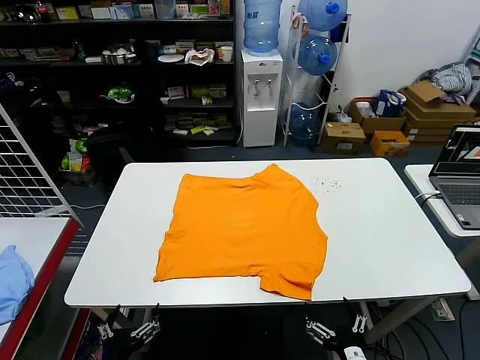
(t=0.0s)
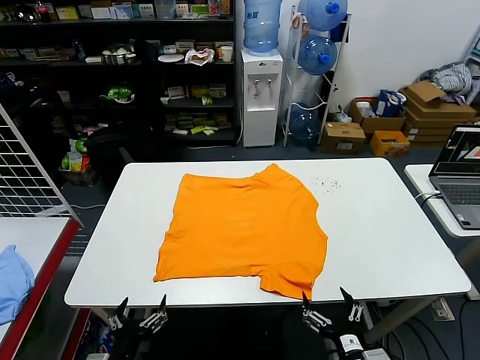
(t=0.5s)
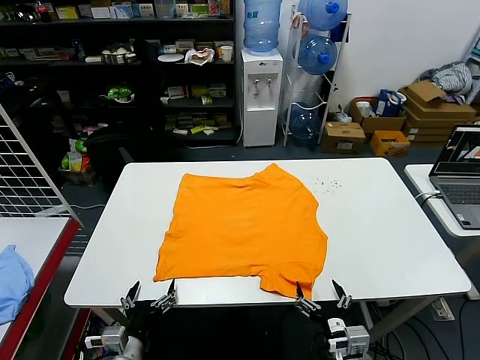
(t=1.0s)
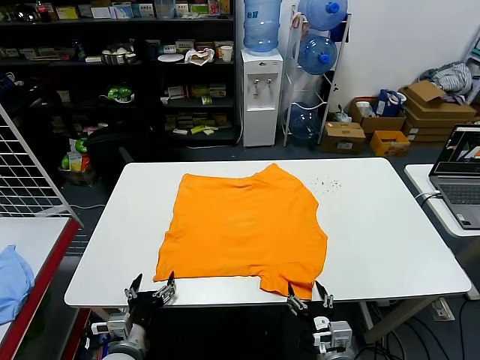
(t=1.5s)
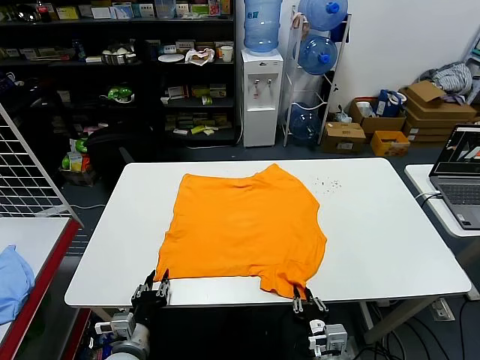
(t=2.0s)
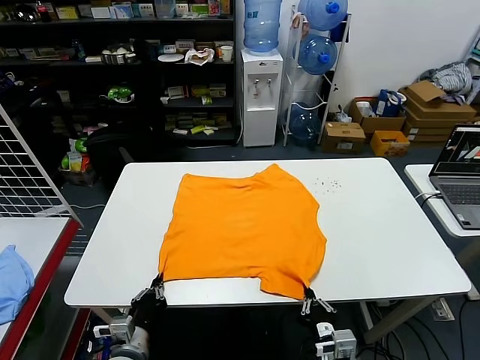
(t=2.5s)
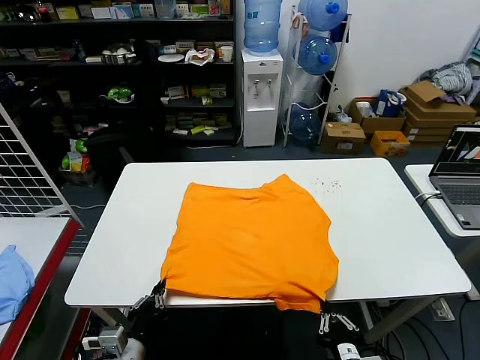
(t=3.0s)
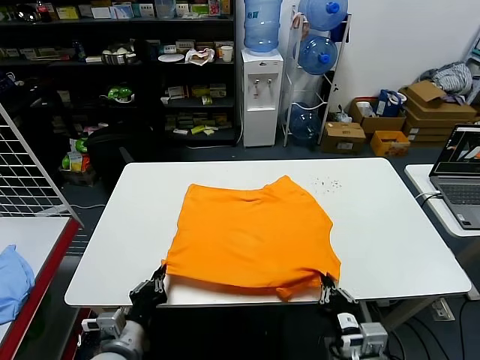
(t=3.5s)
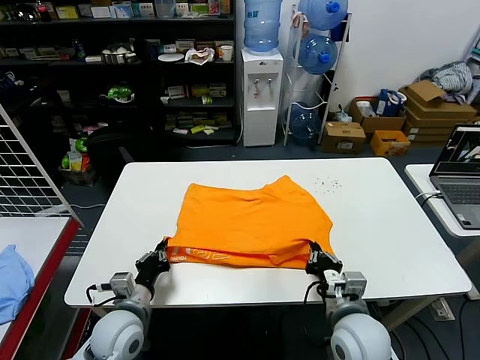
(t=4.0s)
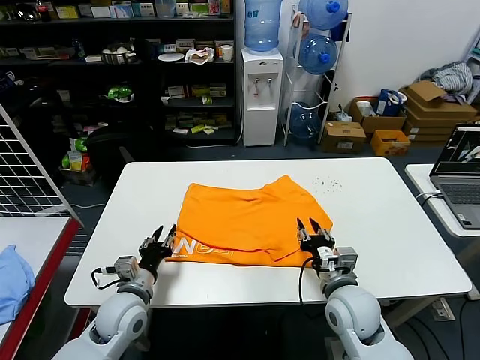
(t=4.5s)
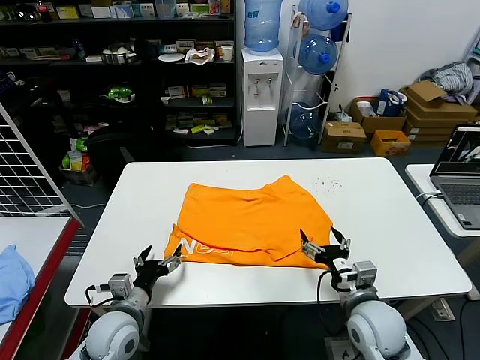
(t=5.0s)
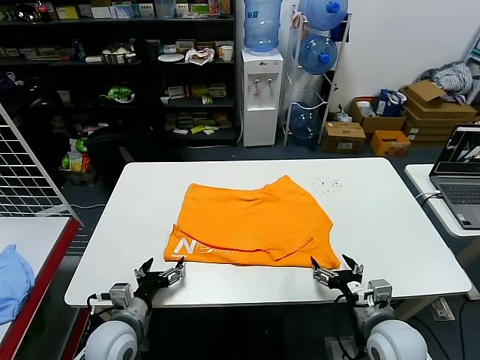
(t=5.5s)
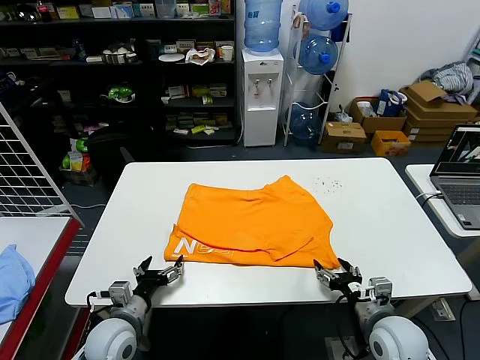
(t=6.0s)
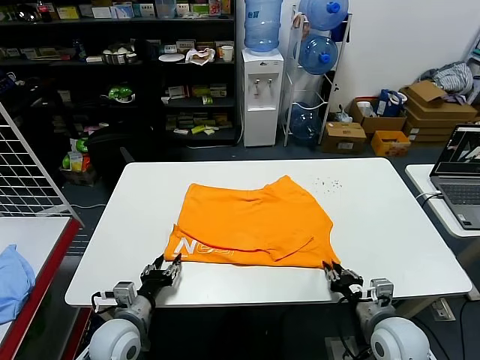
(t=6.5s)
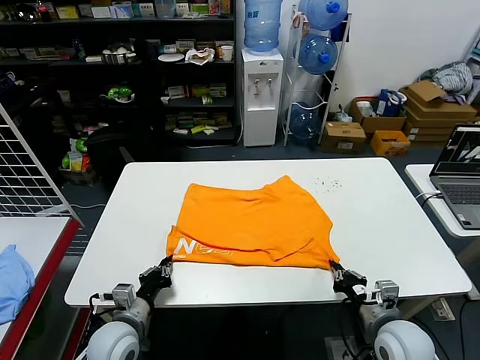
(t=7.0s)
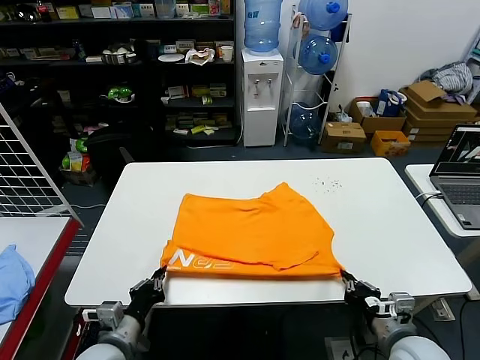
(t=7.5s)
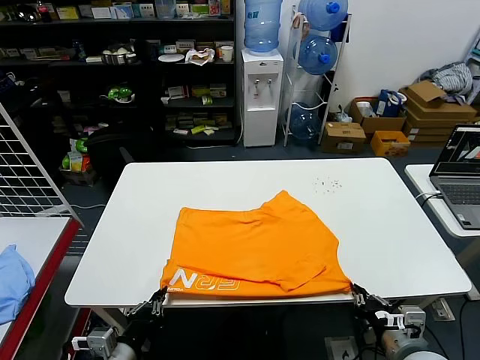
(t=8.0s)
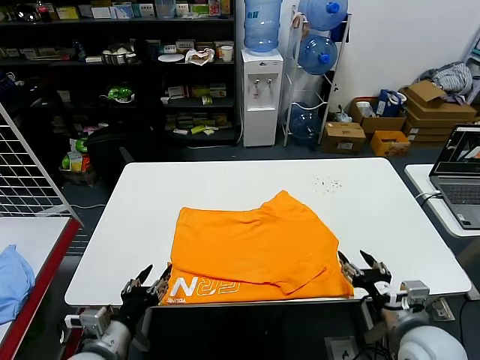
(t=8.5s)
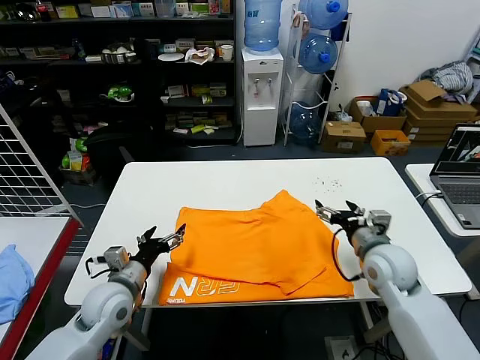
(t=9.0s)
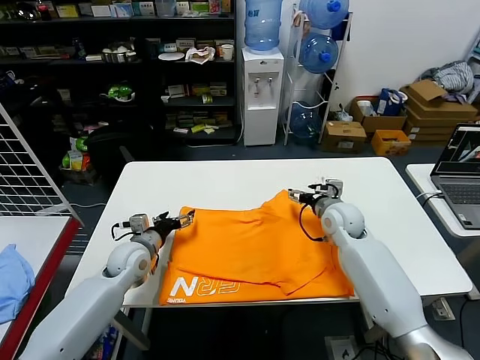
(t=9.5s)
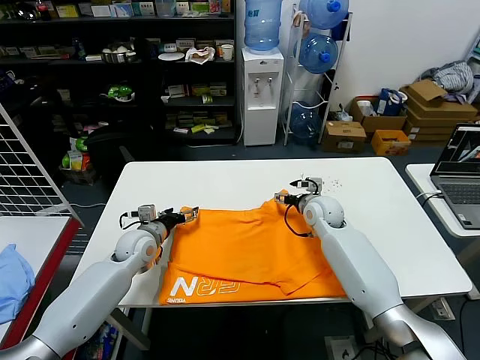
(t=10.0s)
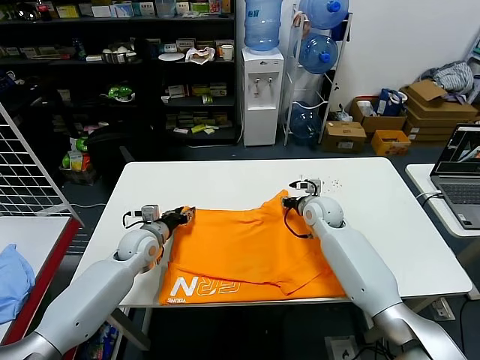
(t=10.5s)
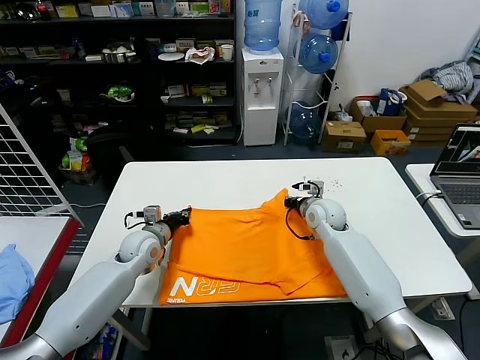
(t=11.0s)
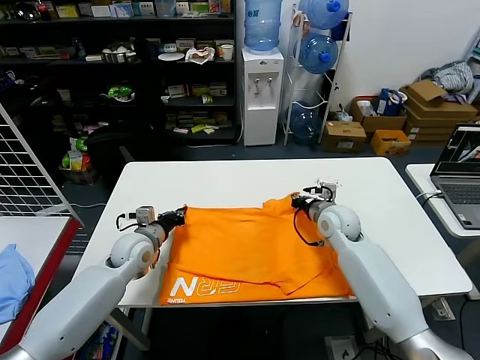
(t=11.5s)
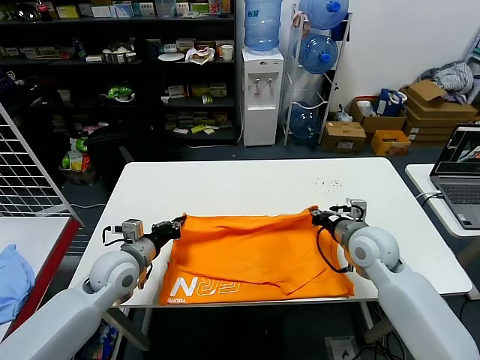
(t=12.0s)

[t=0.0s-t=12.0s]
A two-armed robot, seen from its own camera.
Task of the whole recording: fold and organize the clothes.
Step, t=0.0s to t=2.0s: use both grippers simultaneously to clamp the lower edge of the clothing fabric.
Step, t=2.5s to t=4.0s: use both grippers to drag the lower edge of the fabric forward and fold it over the upper edge.
Step, t=4.5s to t=8.0s: Drag the clothes downward with both gripper.
Step, t=8.5s to t=10.5s: use both grippers simultaneously to clamp the upper edge of the clothing fabric.
t=2.0s to t=4.0s: The left gripper travels forward by about 5 cm, and closes its fingers; the right gripper shifts about 10 cm forward and upward.
t=4.0s to t=6.0s: The right gripper is displaced to the right by some 10 cm, and opens up. The left gripper opens its fingers.
t=6.0s to t=8.0s: The left gripper travels backward and upward by about 10 cm, and closes its fingers, while the right gripper heads backward, covering roughly 5 cm, and closes.
t=8.0s to t=10.0s: The two grippers go some 35 cm forward. The left gripper opens up, while the right gripper opens its fingers.
t=10.0s to t=12.0s: The left gripper goes some 10 cm backward and upward, and closes its fingers; the right gripper shifts roughly 15 cm backward and to the right, and closes up.

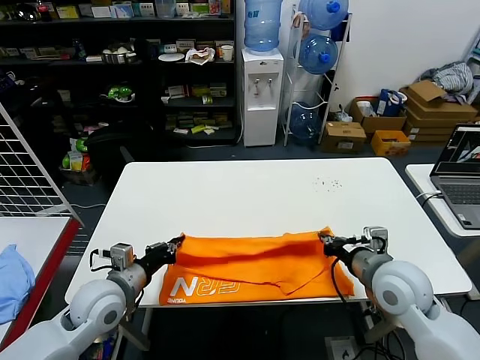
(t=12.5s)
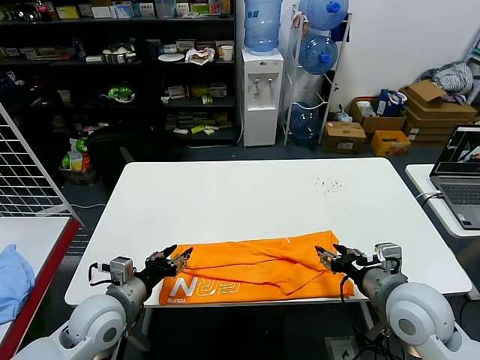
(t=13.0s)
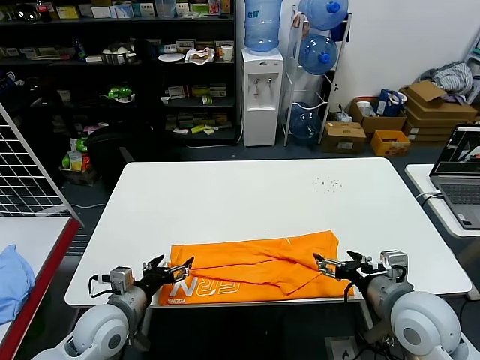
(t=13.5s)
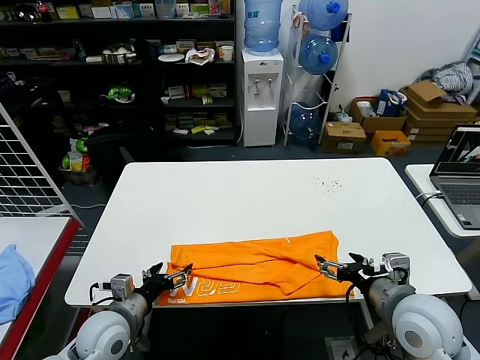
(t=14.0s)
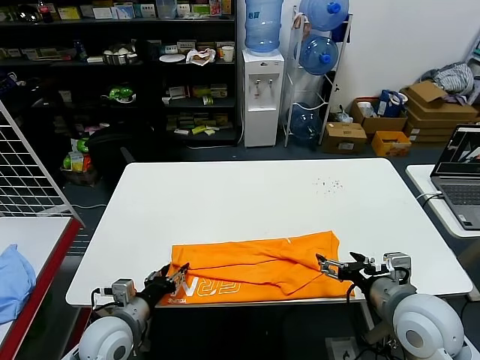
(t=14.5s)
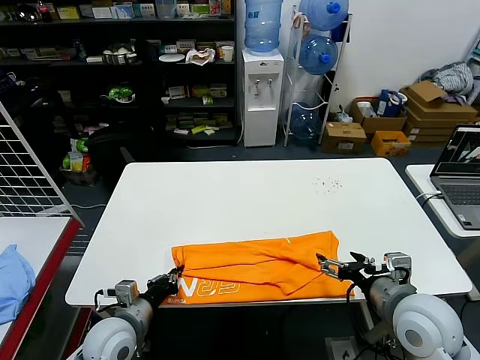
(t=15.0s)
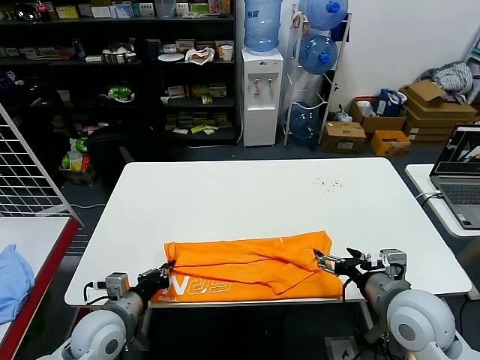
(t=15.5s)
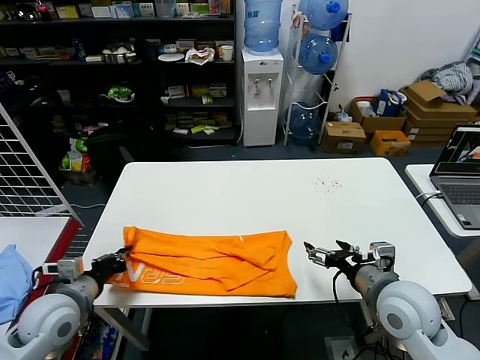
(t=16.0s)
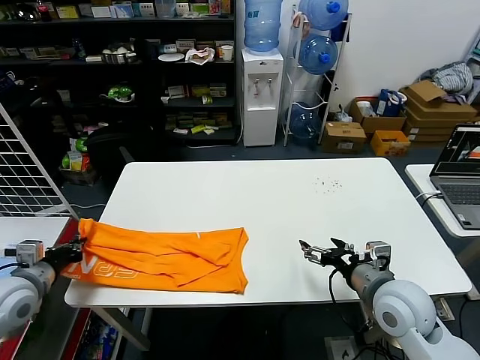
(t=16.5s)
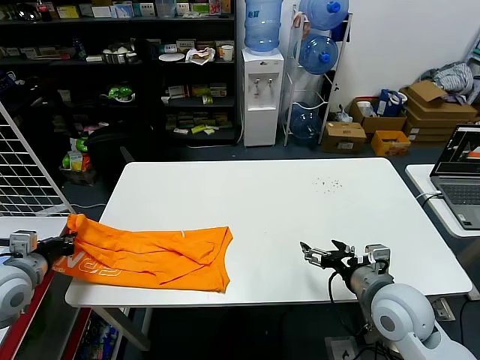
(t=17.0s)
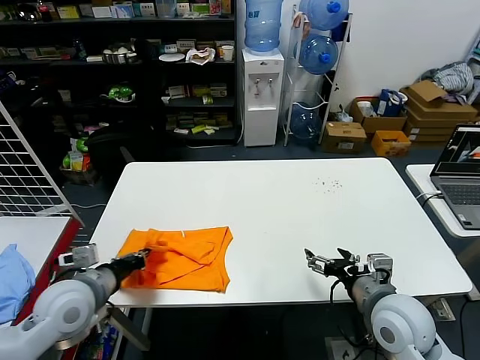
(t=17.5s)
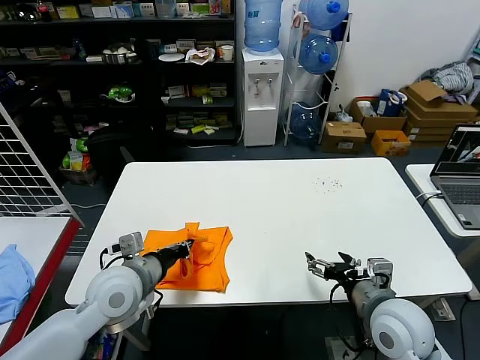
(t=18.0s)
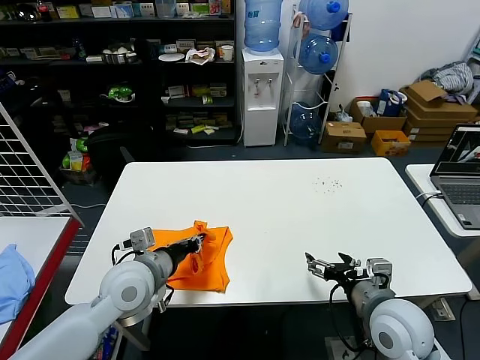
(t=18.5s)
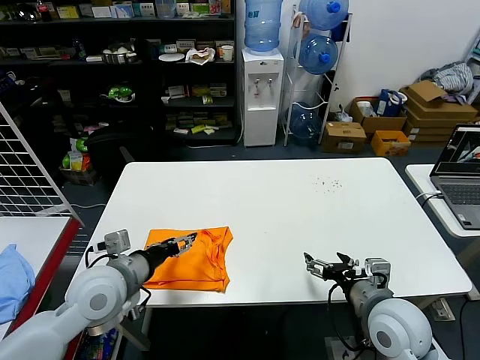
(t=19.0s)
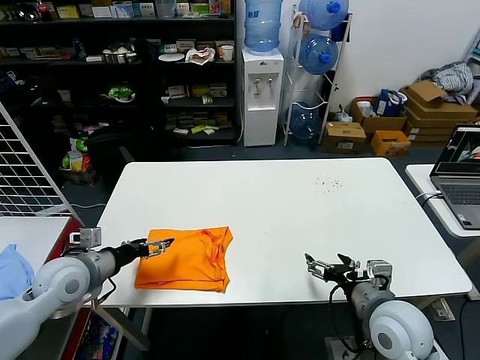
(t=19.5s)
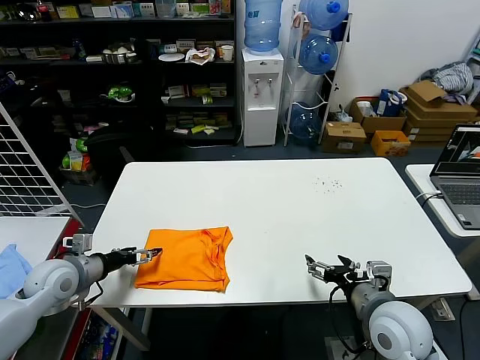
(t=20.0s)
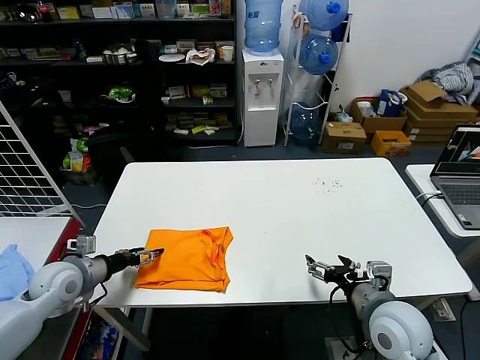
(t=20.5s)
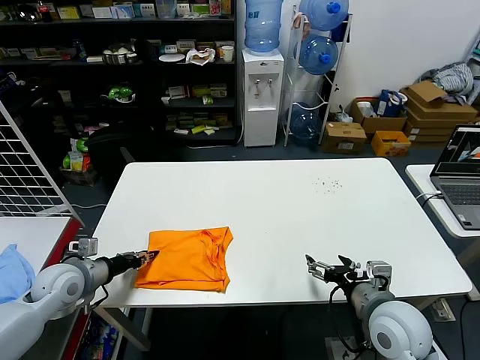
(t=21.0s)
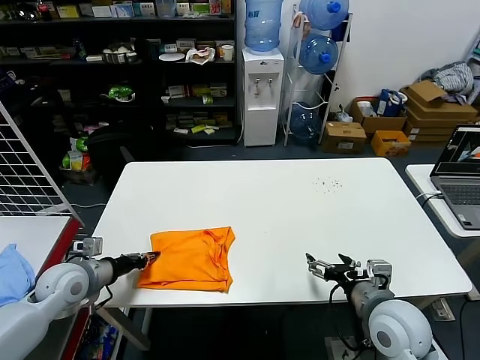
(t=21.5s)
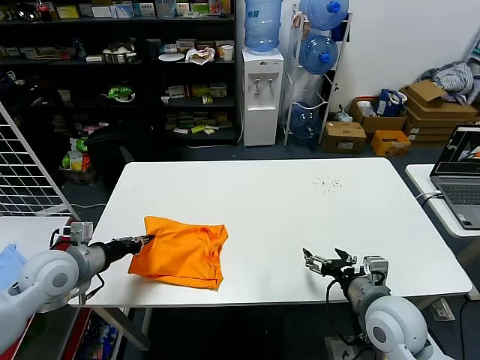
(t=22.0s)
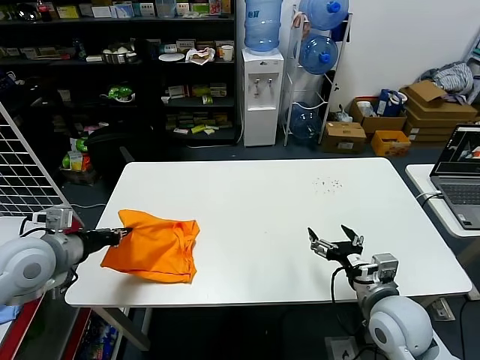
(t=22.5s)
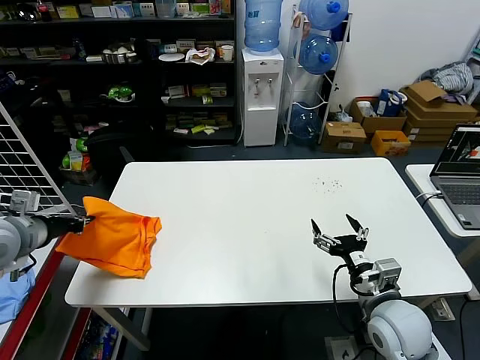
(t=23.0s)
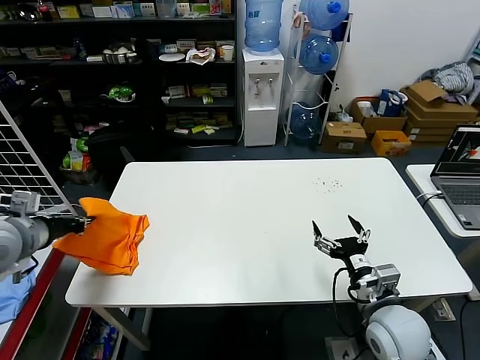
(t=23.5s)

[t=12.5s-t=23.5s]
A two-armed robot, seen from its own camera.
Task of the whole recording: fold and organize the clothes.
Step, t=13.0s to t=14.5s: use the left gripper to clamp the left edge of the fabric.
Step, t=15.0s to t=18.5s: use the left gripper to drag the left edge of the fabric to the left and folds it over the right edge.
t=12.5s to t=14.5s: The right gripper moves backward, about 5 cm, and opens its fingers. The left gripper heads downward and backward, covering about 10 cm, and opens up.
t=14.5s to t=16.0s: The left gripper travels to the left and upward by approximately 10 cm, and closes.
t=16.0s to t=18.0s: The left gripper heads to the right, covering roughly 10 cm.
t=18.0s to t=20.0s: The left gripper goes roughly 15 cm to the left, and opens.
t=20.0s to t=21.5s: The left gripper closes its fingers.
t=21.5s to t=23.5s: The left gripper goes about 20 cm upward.

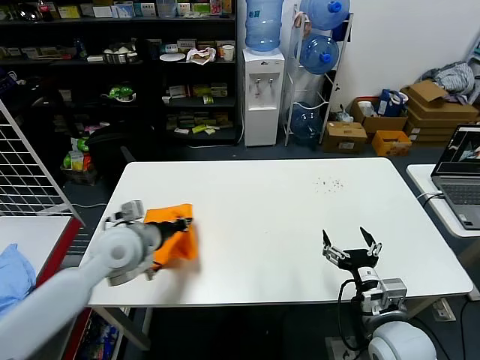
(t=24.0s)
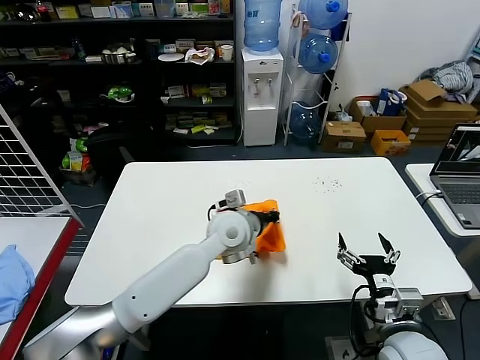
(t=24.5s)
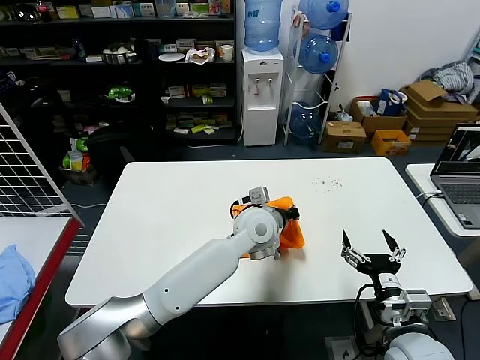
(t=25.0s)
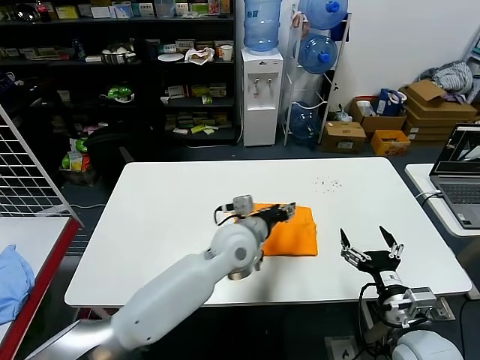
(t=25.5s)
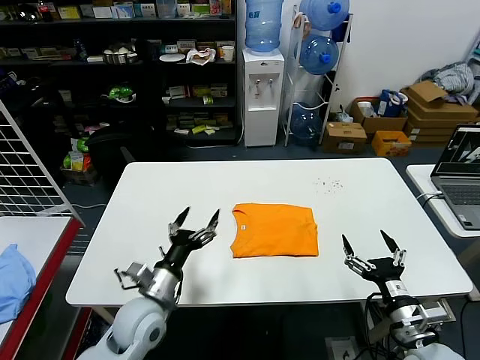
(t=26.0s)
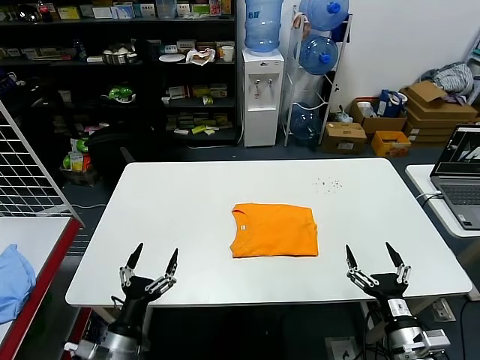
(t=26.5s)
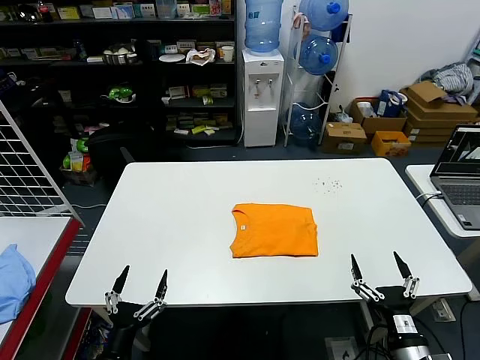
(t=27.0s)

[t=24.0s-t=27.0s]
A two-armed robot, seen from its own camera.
Task of the whole recording: fold and organize the clothes.
t=24.0s to t=25.5s: The left gripper travels to the right by some 30 cm, and opens.
t=25.5s to t=27.0s: The left gripper is displaced backward, to the left and downward by approximately 40 cm, and opens up. The right gripper is displaced backward and downward by about 10 cm.
